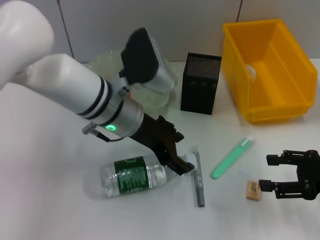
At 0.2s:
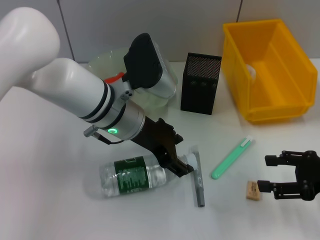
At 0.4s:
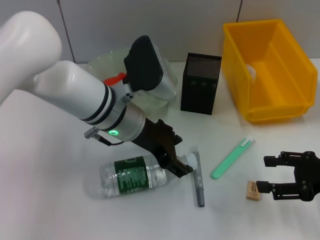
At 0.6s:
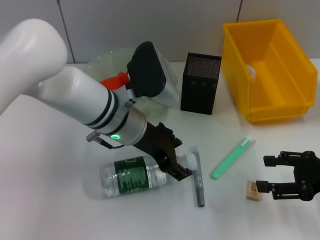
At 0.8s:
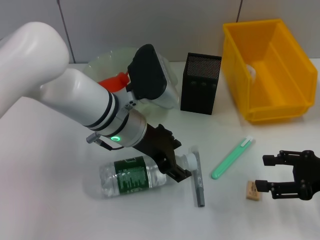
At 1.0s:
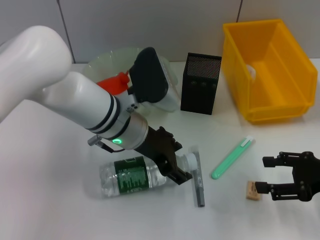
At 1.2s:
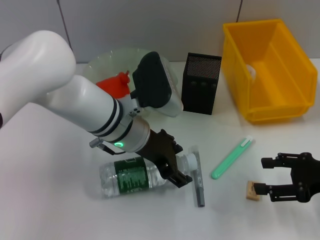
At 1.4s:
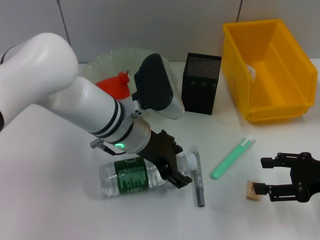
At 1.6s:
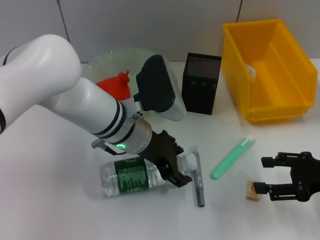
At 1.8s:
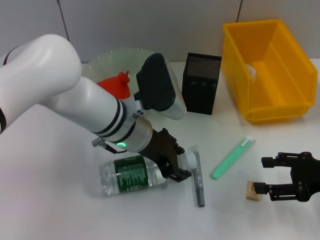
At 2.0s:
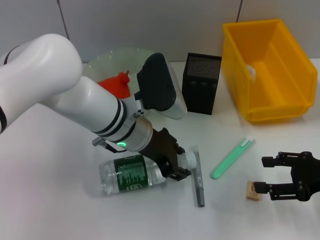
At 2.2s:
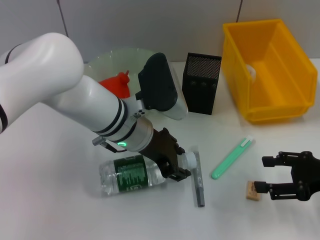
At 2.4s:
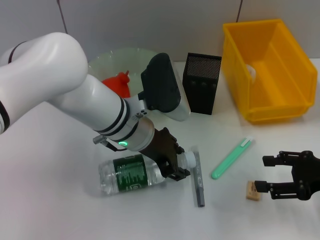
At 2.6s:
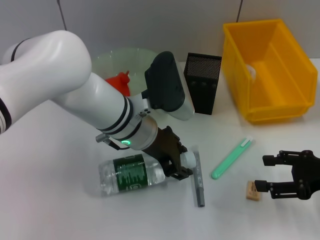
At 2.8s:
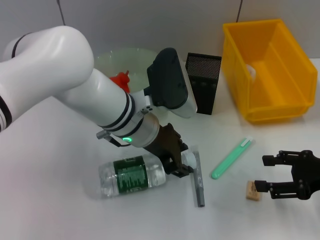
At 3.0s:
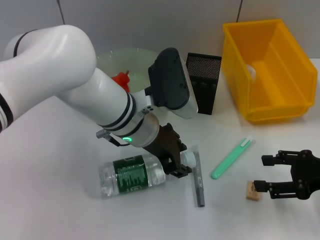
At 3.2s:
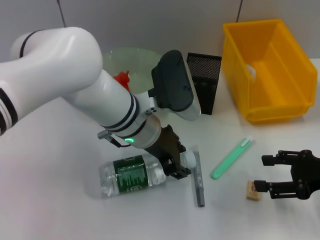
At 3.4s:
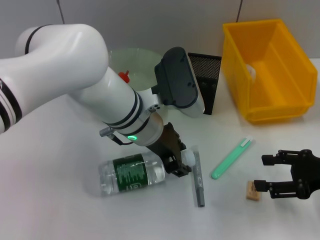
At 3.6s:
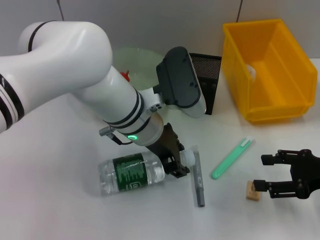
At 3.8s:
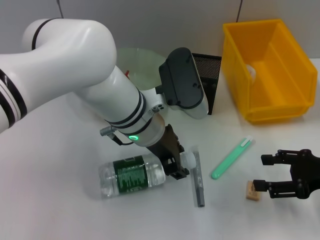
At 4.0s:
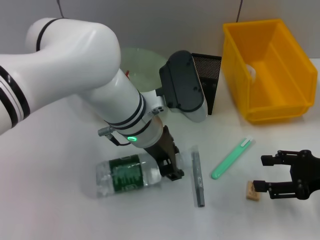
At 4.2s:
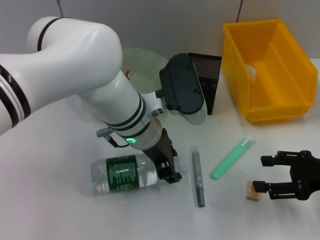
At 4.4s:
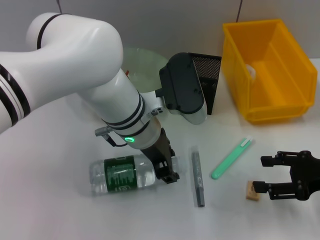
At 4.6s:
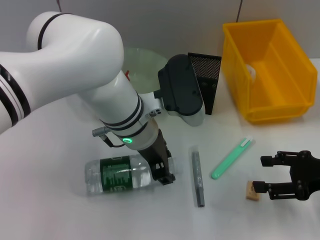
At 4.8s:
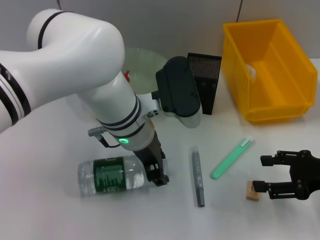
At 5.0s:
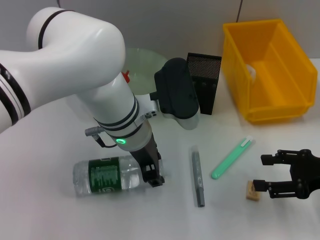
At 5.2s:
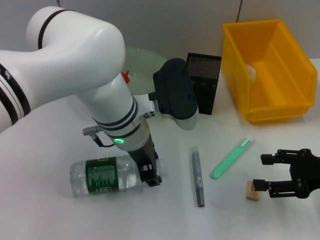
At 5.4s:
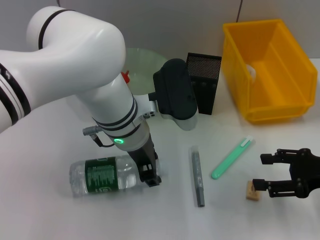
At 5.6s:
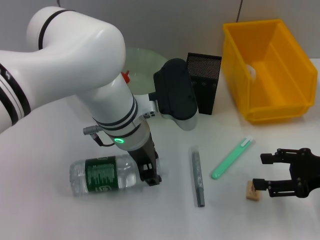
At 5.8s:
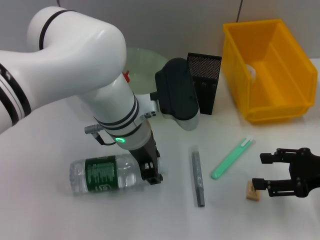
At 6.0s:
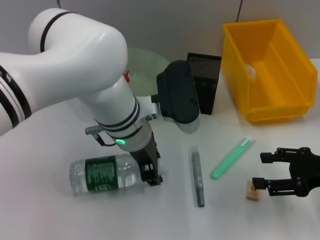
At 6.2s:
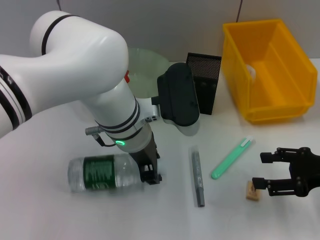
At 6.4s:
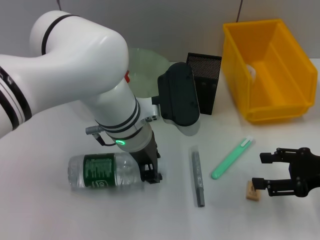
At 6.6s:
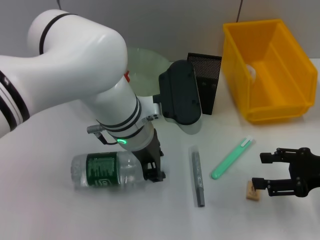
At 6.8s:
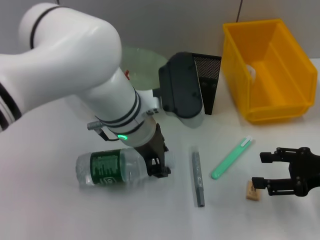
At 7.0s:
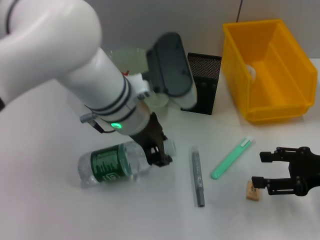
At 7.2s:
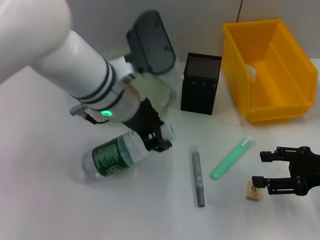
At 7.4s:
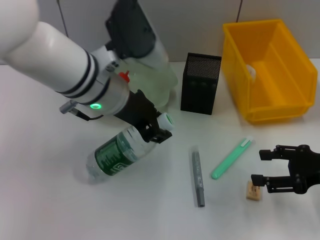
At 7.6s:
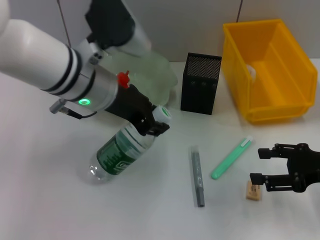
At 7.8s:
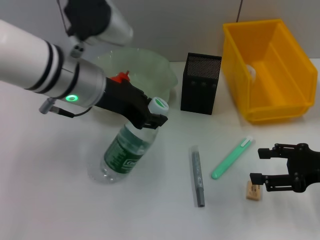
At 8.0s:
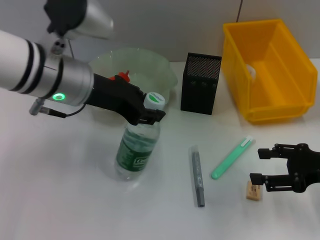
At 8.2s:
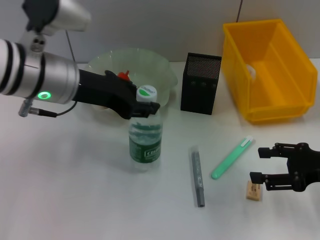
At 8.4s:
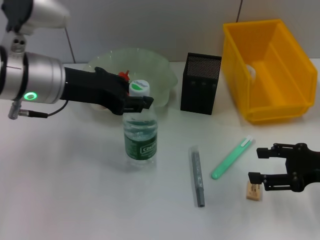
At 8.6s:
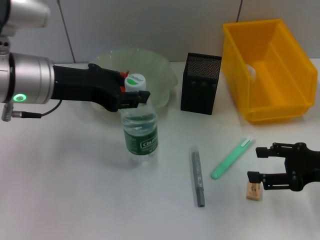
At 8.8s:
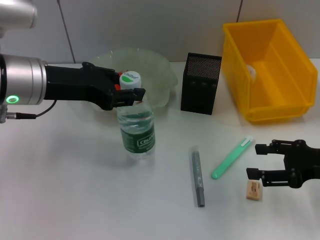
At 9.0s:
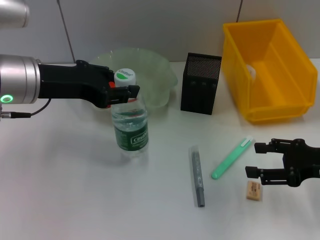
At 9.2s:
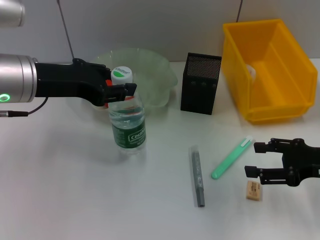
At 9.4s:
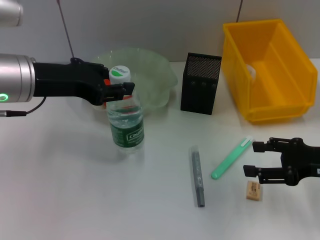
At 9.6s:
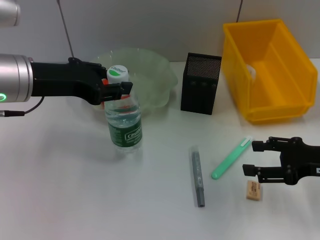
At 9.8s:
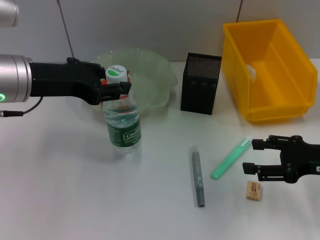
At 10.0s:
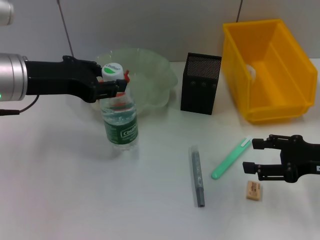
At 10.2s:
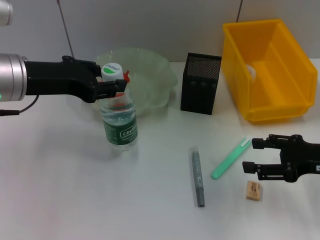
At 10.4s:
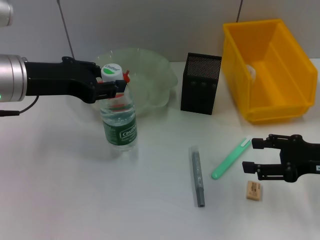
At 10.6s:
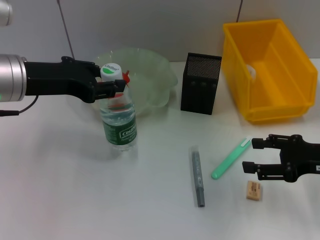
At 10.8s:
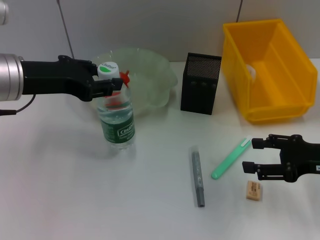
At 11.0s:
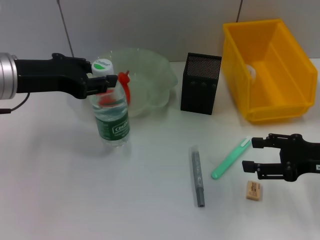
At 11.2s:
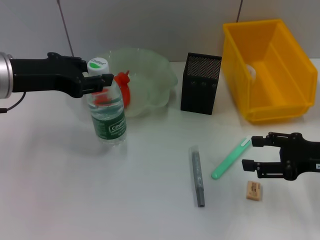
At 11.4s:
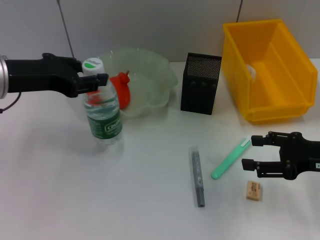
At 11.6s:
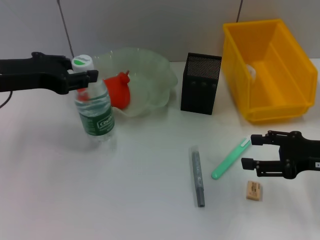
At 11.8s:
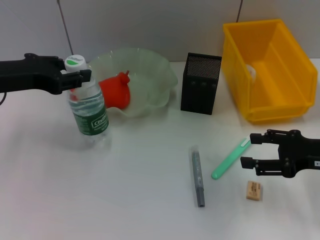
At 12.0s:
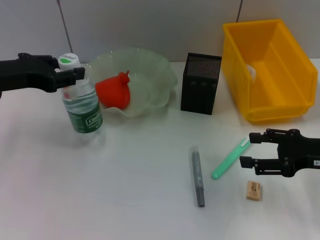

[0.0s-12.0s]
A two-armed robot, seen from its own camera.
Step, 0.0s to 6.6s: Grab the water bottle with the left hand.
0.0s to 1.6s: The grippers stay close to where they were, moving slightly.
1.6s to 3.0s: The left gripper closes.
3.0s to 6.0s: The grippers move only a little.
6.0s to 7.6s: The left gripper shifts about 10 cm to the left and upward.
7.6s to 9.0s: The left gripper shifts approximately 10 cm to the left.
9.0s to 10.4s: The grippers stay close to where they were, moving slightly.
10.4s to 12.0s: The left gripper moves to the left, some 5 cm.

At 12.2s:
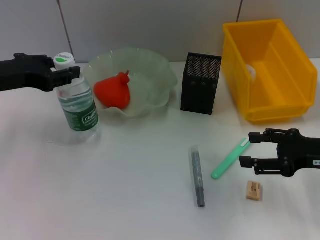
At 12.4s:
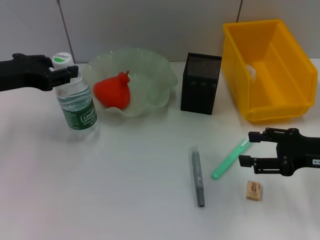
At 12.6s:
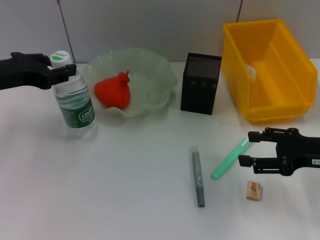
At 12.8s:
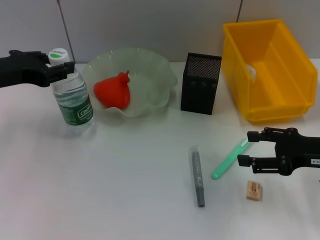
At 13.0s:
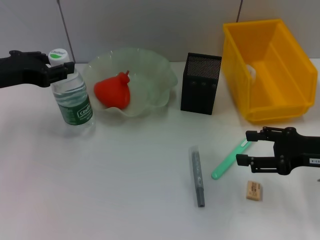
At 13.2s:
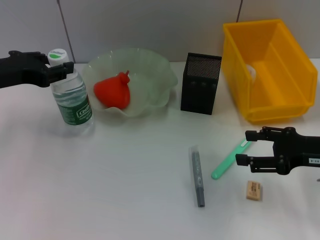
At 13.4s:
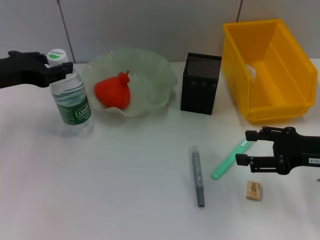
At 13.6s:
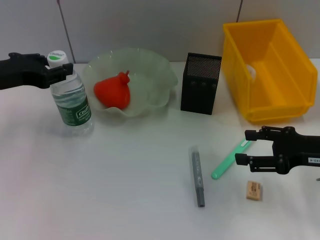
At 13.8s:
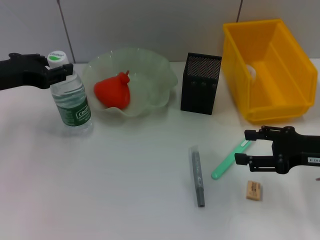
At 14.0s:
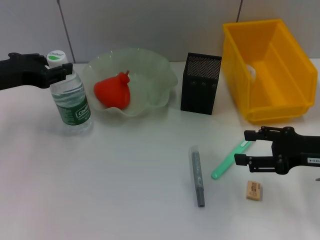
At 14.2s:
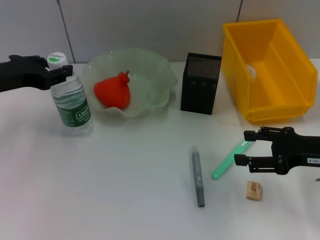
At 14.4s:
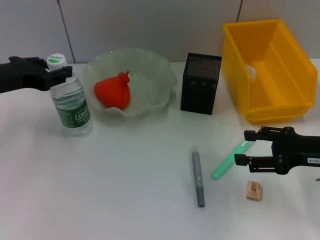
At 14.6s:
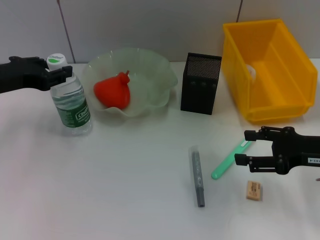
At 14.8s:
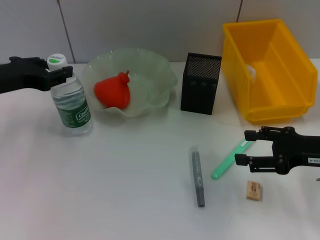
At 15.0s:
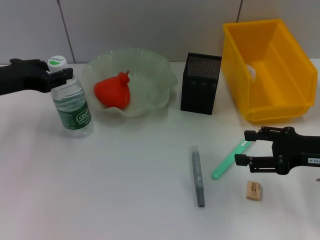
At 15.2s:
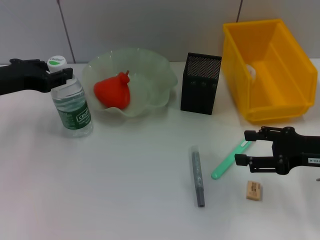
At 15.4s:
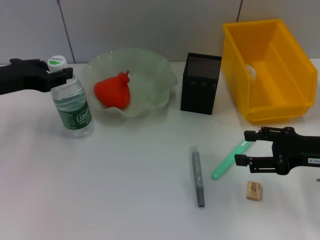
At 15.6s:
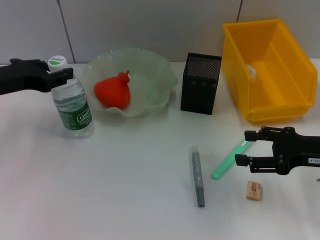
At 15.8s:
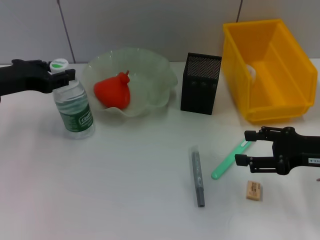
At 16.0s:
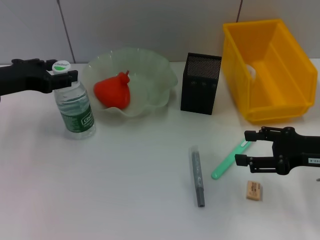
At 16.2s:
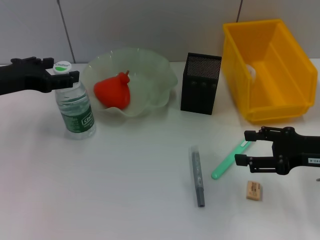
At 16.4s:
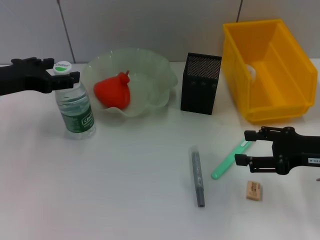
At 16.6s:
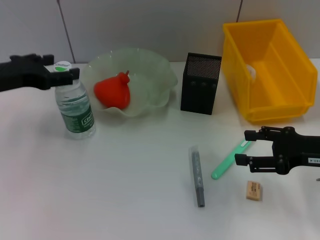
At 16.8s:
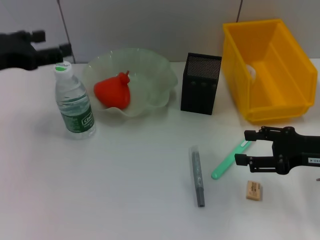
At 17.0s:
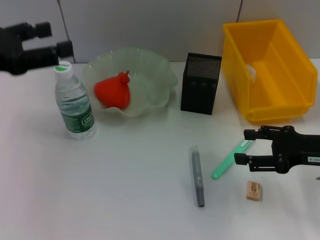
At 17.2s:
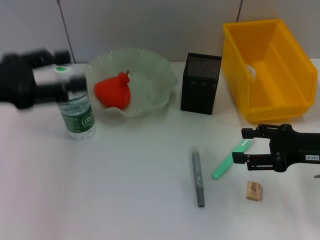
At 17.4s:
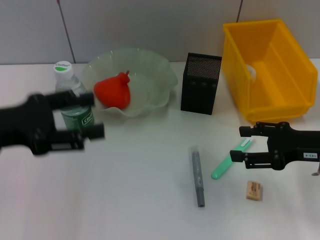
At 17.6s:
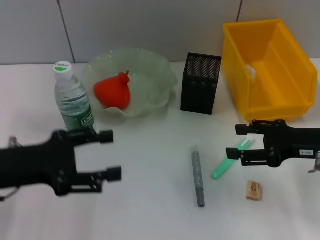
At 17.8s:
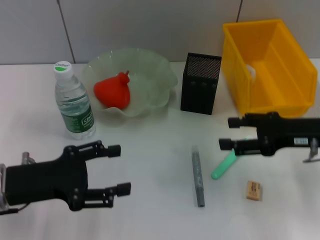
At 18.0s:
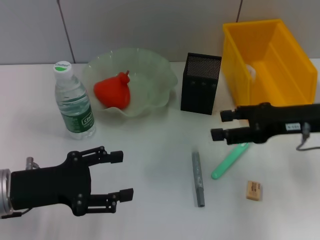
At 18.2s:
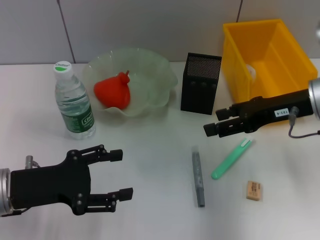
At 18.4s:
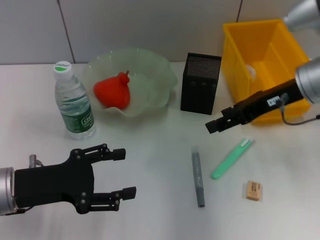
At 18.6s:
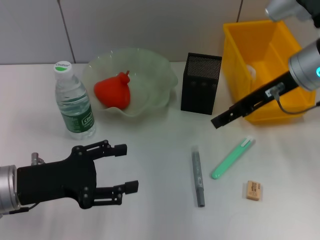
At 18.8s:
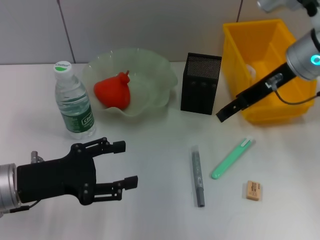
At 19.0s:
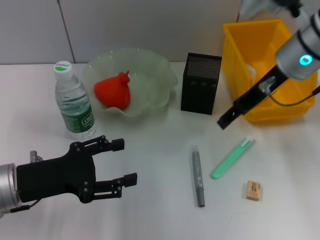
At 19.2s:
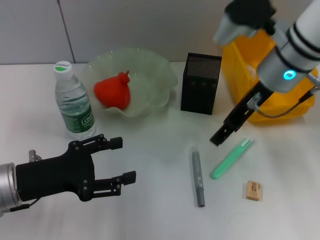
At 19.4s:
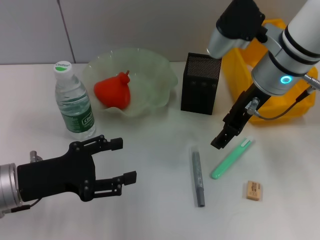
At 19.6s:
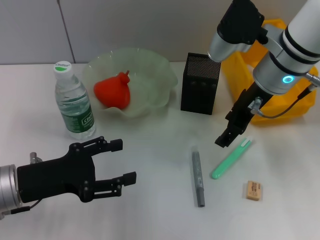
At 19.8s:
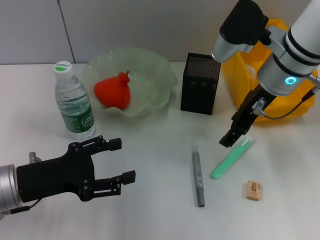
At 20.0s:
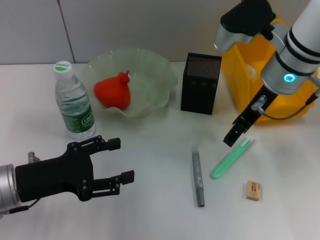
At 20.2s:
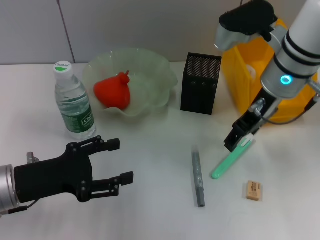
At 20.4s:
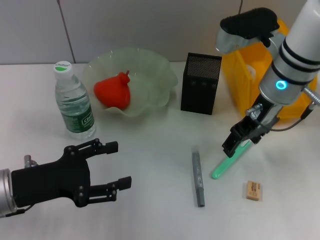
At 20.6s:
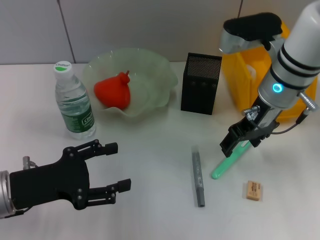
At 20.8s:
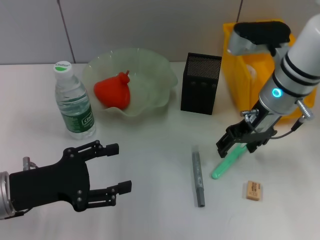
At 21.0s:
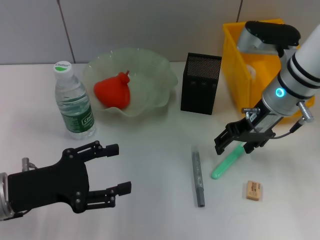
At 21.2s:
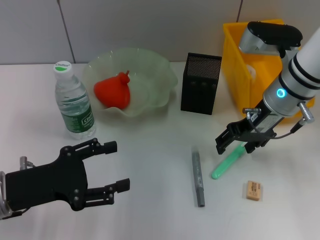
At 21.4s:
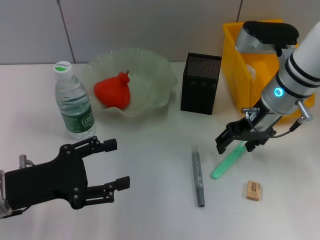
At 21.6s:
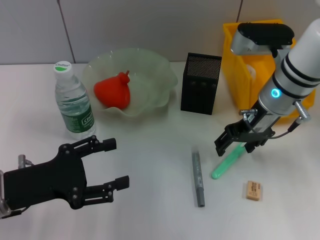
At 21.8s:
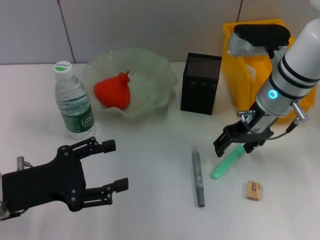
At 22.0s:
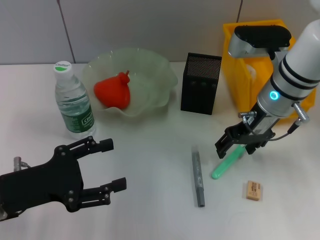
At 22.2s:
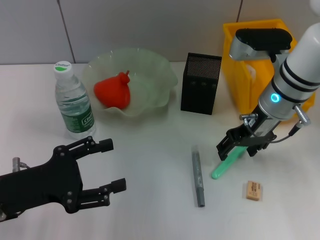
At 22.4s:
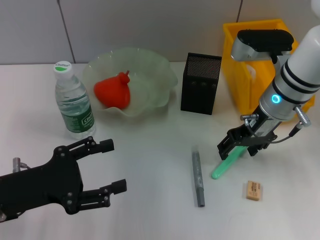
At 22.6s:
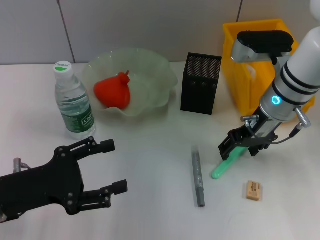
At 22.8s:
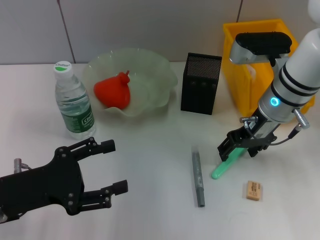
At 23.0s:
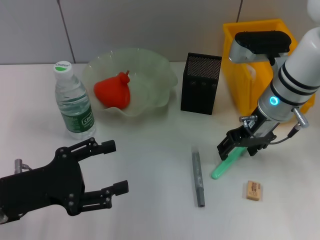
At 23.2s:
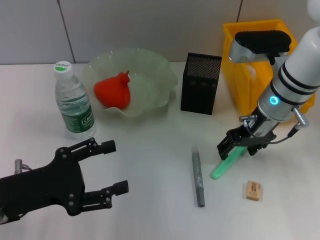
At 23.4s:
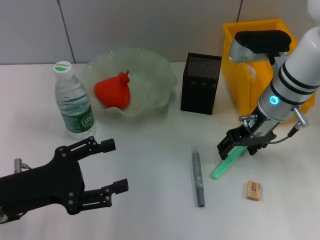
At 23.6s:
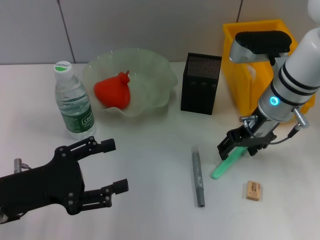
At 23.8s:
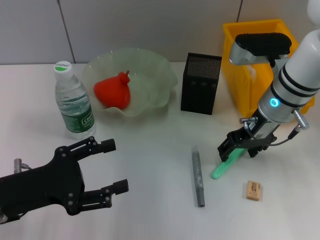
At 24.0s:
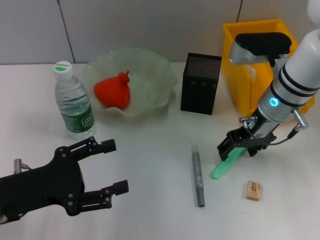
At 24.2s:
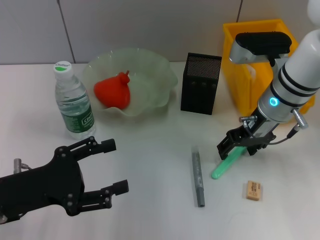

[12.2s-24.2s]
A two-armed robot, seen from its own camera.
Step, 12.2s to 16.4s: Place the water bottle on the table with the left hand.
12.2s to 13.8s: There are only small adjustments of the grippers.
13.8s to 15.2s: Both grippers stay about where they are.
15.2s to 16.6s: The left gripper opens its fingers.
16.6s to 18.2s: The left gripper moves backward and downward, about 15 cm; the right gripper moves upward, to the left and forward, about 10 cm.
18.2s to 19.8s: The right gripper heads to the left, covering roughly 10 cm.
21.2s to 22.6s: The grippers stay close to where they were, moving slightly.
22.6s to 24.2s: Both grippers stay about where they are.
